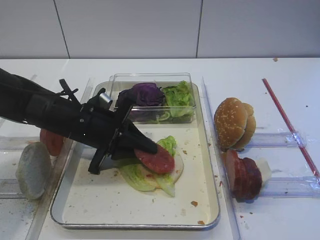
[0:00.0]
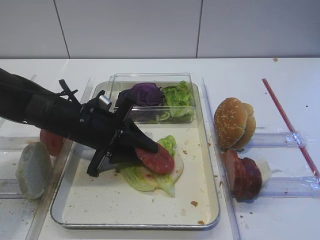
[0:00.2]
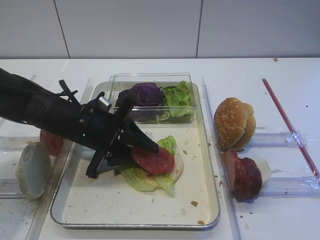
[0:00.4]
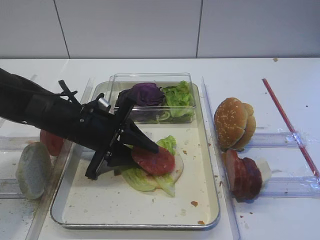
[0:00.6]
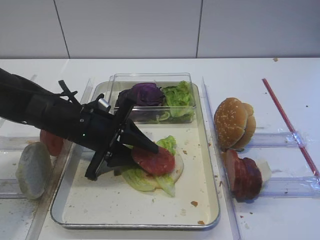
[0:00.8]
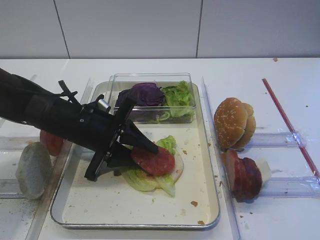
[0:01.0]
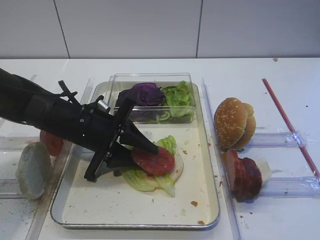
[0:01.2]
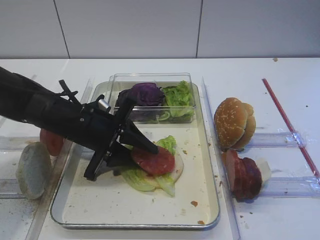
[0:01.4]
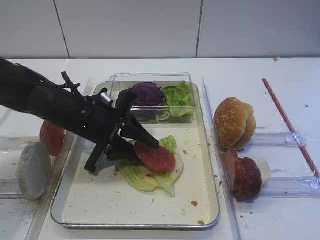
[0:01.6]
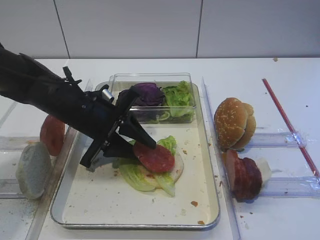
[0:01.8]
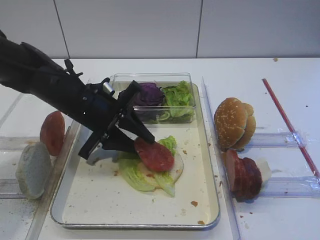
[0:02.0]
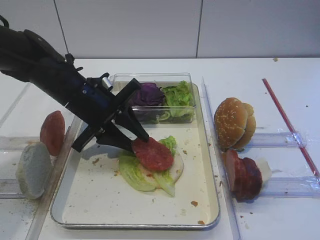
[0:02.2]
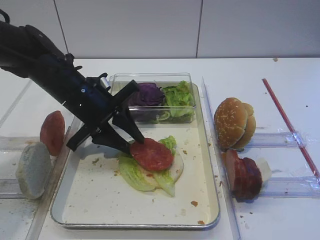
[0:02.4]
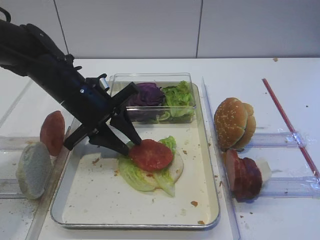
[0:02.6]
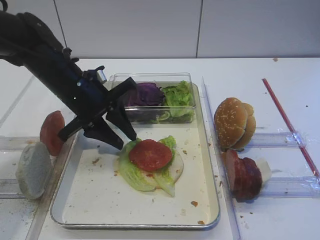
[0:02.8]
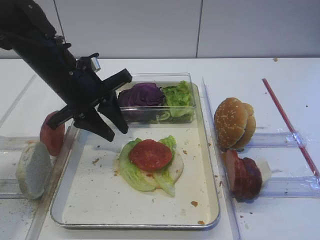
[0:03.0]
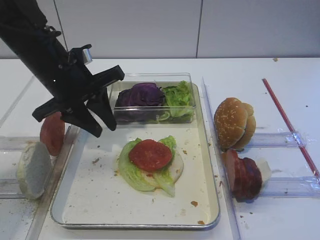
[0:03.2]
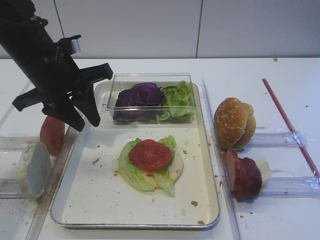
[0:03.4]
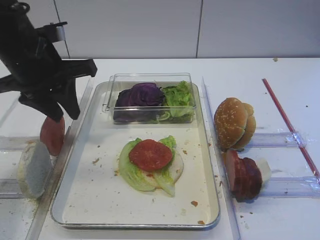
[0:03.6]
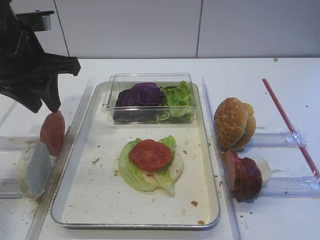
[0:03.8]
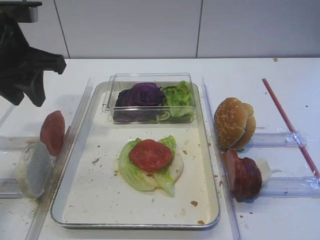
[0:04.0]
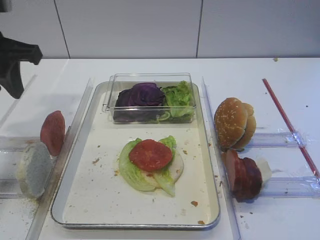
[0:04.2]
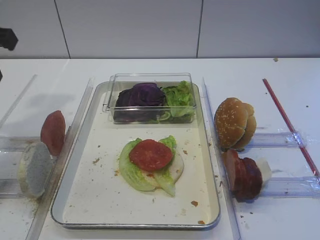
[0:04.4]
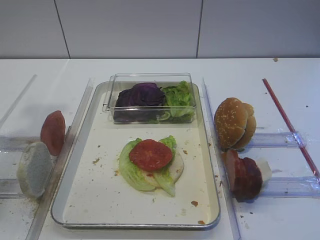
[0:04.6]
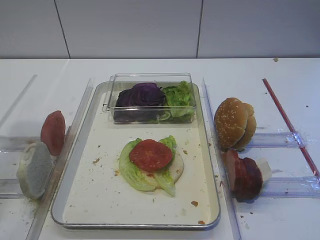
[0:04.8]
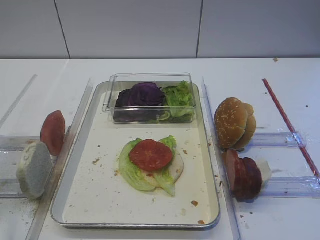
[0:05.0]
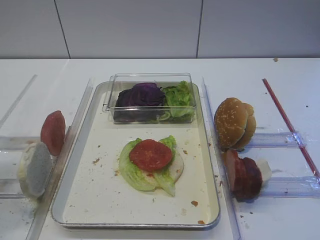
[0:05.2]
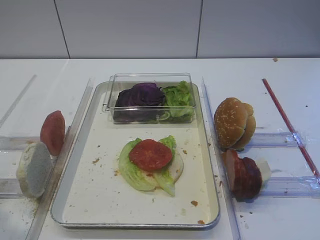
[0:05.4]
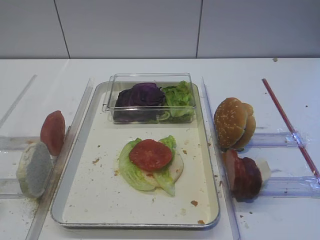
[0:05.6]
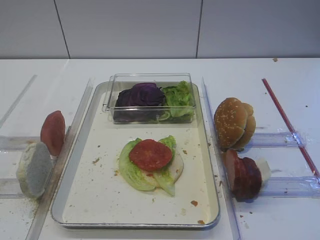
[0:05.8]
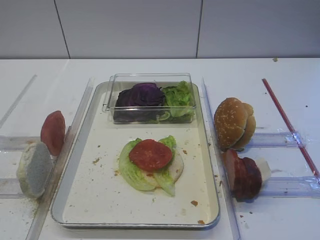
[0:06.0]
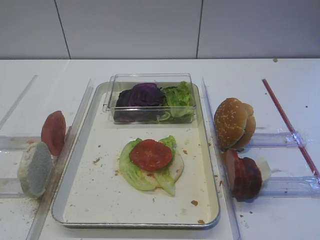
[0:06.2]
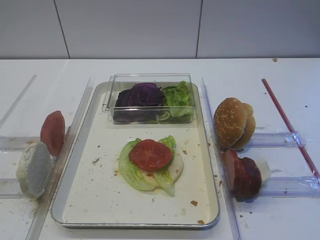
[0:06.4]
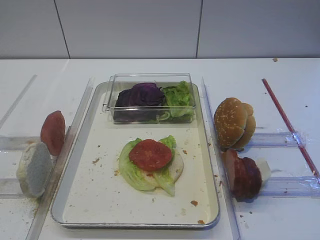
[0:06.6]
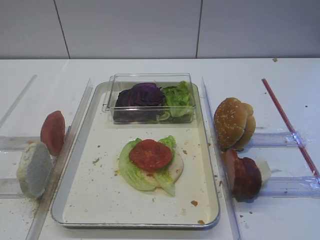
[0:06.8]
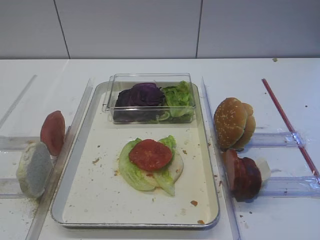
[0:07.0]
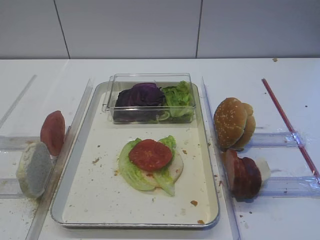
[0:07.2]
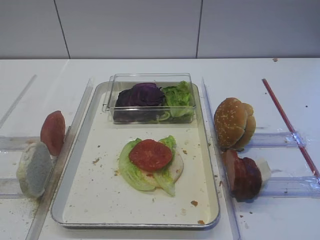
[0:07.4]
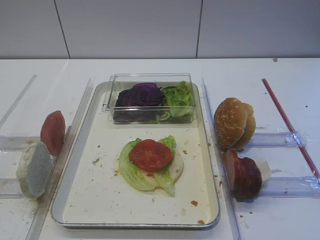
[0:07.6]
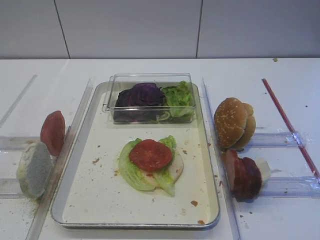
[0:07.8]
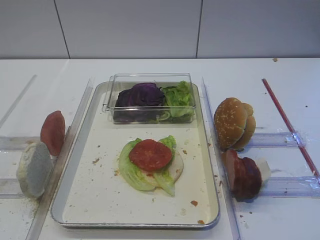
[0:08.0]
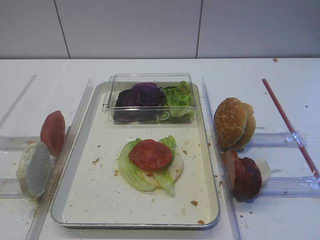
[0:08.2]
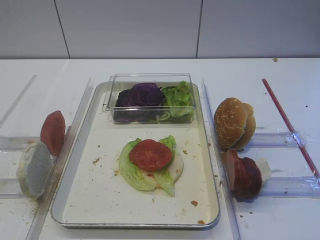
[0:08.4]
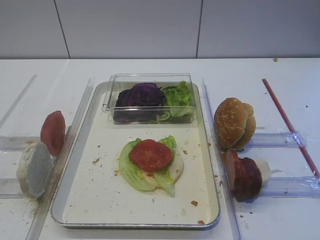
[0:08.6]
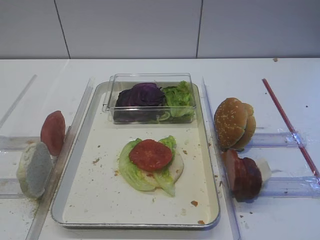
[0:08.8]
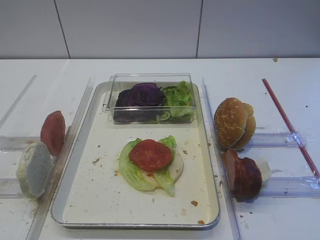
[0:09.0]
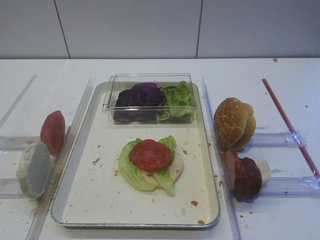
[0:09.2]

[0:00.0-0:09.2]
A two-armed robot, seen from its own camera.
Step, 0:00.0 to 0:02.8: Place the tomato slice on the lettuce leaf with the left gripper.
0:00.0 to 0:01.6: The left gripper opens its fingers.
0:01.6 to 0:03.0: The left gripper moves upward, roughly 5 cm.
0:03.0 to 0:04.6: The left gripper heads upward, to the left and backward, covering about 20 cm. Meanwhile the right gripper closes its fingers.
0:04.6 to 0:06.2: The left gripper goes some 25 cm backward.
0:07.6 to 0:09.2: The two grippers keep their place.

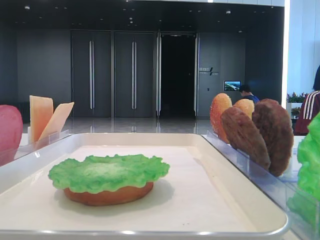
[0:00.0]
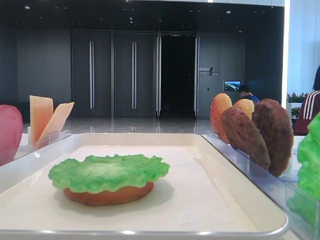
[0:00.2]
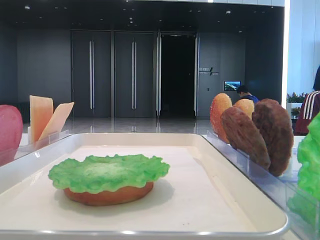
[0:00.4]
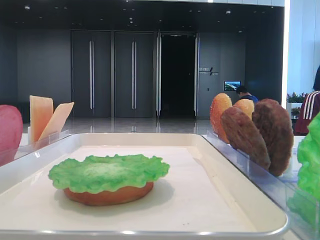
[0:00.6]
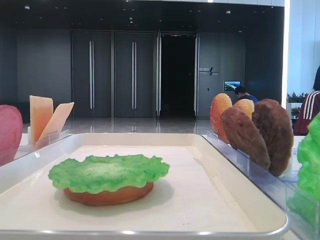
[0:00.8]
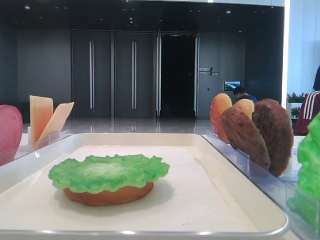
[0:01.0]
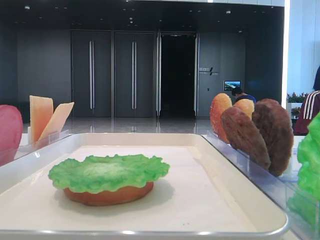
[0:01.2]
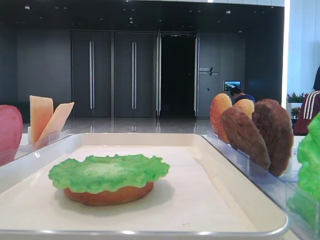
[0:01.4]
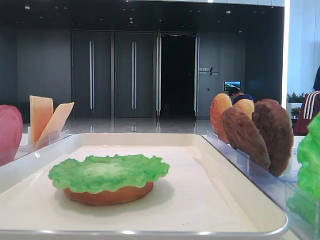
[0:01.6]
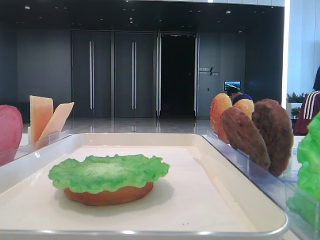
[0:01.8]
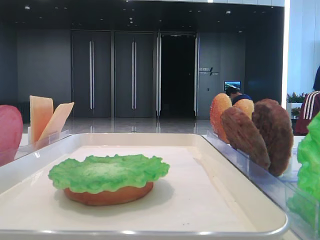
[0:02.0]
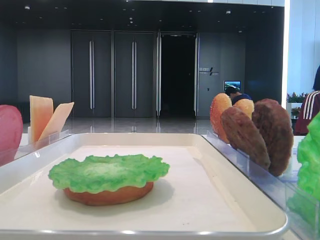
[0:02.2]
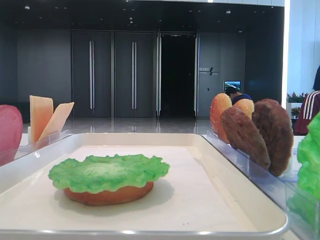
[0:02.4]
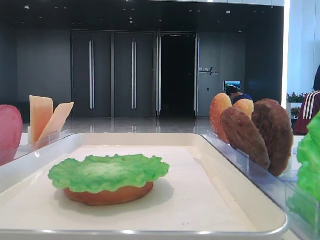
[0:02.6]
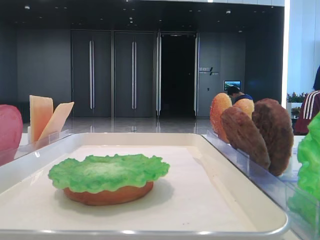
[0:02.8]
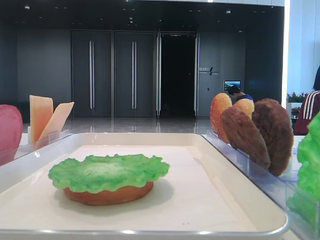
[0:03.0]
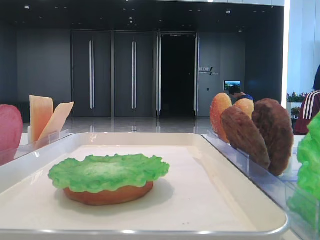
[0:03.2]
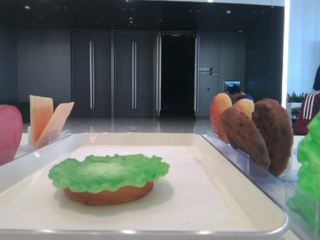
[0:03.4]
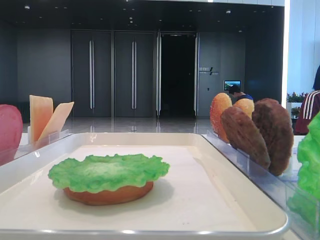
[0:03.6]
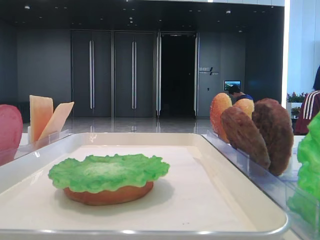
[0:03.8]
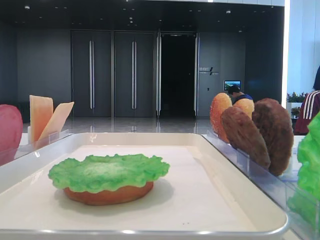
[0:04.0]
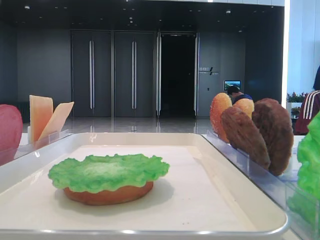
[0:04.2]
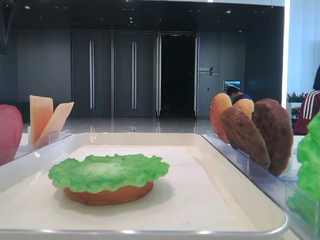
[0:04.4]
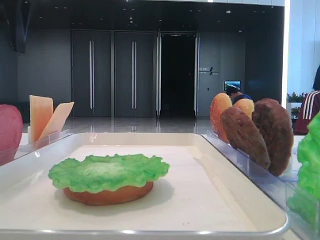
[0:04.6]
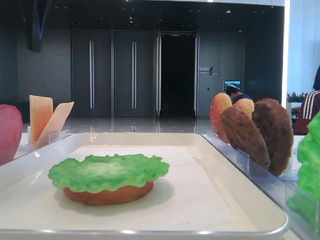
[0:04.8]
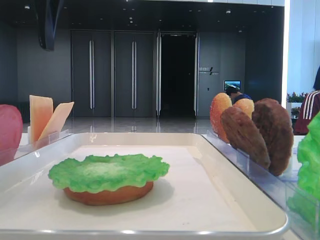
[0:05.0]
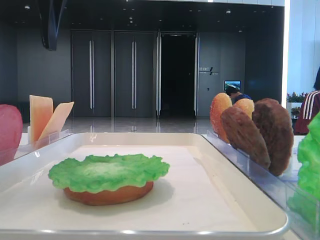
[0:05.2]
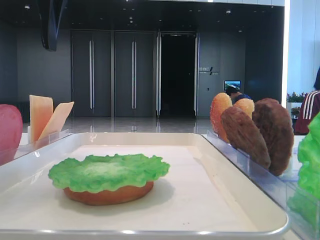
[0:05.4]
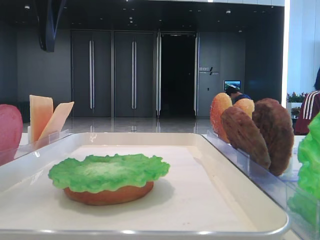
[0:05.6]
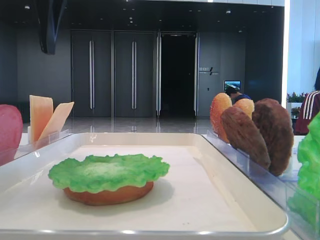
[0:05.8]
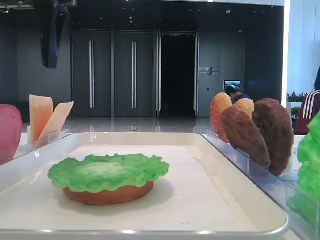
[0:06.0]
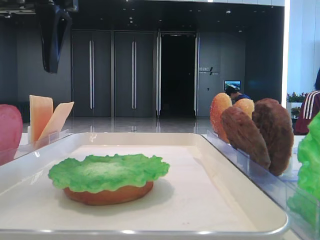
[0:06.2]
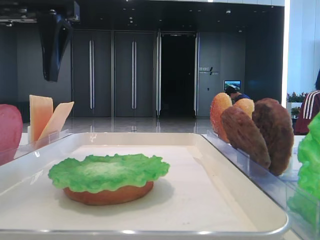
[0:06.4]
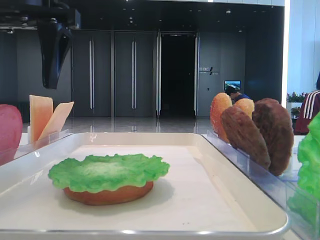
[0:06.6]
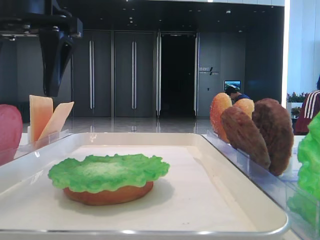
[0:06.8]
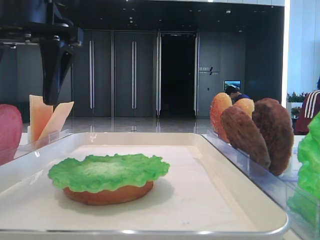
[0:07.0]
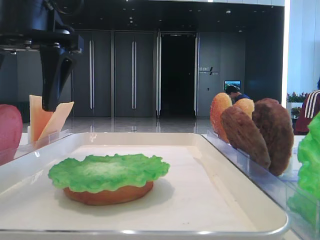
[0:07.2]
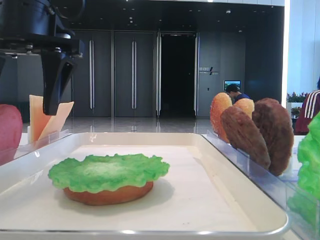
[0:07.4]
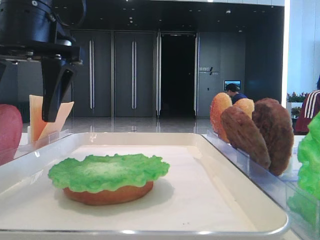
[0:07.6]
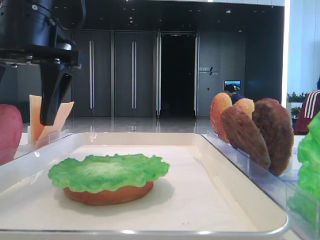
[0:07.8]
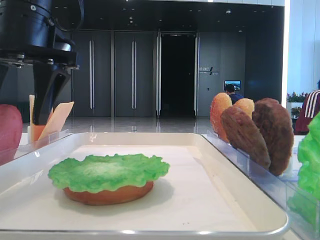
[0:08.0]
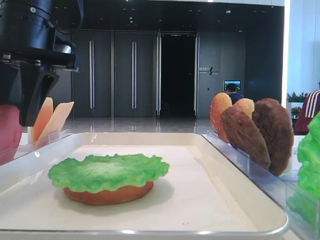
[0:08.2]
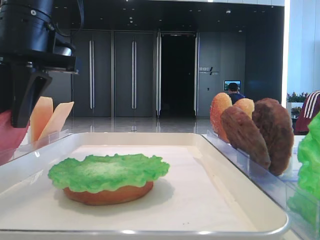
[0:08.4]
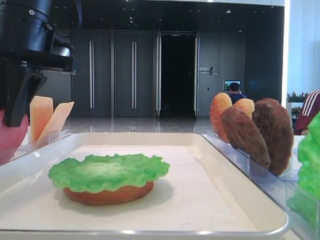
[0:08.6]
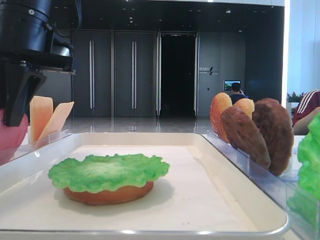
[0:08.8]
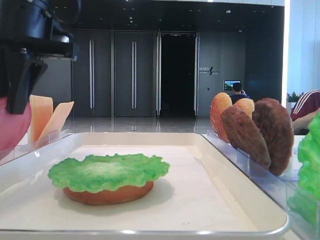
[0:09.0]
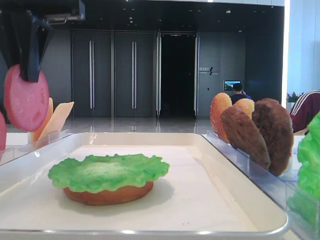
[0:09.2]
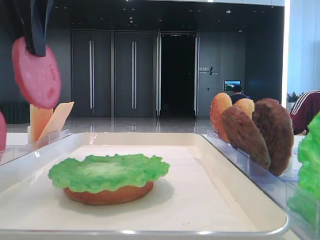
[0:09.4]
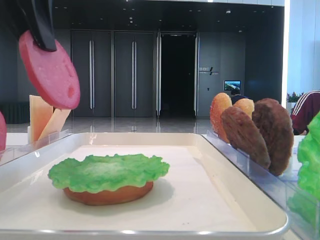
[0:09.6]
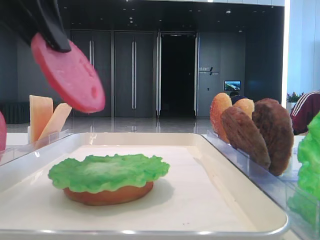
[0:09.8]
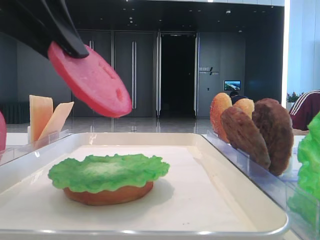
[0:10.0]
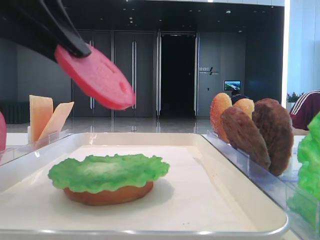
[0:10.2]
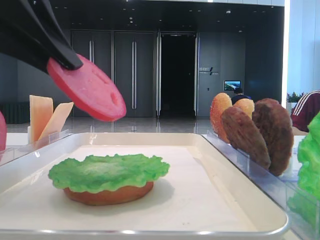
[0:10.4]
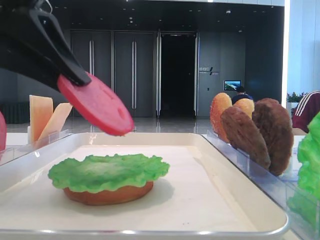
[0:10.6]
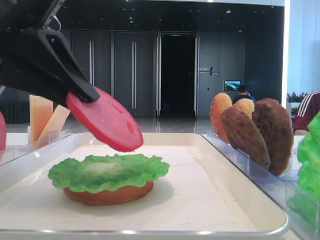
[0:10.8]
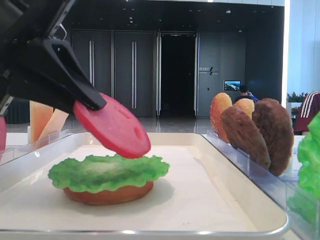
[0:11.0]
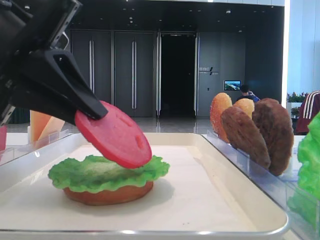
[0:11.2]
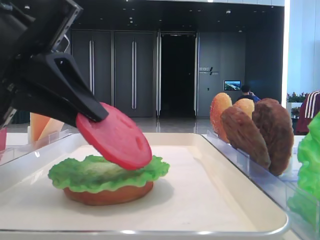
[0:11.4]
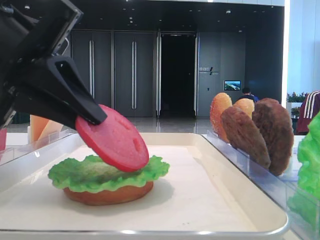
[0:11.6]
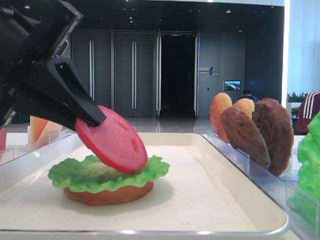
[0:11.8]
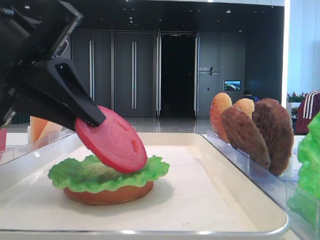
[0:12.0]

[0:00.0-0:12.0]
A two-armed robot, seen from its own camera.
Step, 0:00.0 to 0:08.6: Pick up the tomato slice with the left hand.
0:04.4 to 0:06.0: The left gripper travels to the right by approximately 10 cm.
0:06.0 to 0:07.6: The left gripper goes some 5 cm downward.
0:07.6 to 0:09.0: The left gripper closes its fingers.
0:09.0 to 0:10.4: The left gripper goes about 10 cm backward.
0:10.4 to 0:12.0: The left gripper shifts some 5 cm downward.

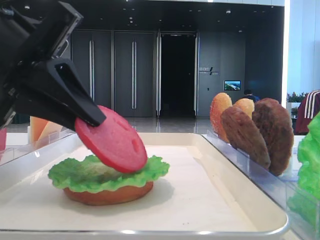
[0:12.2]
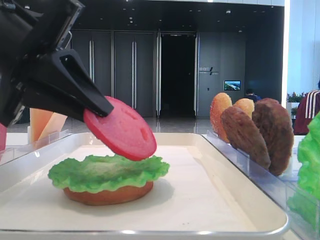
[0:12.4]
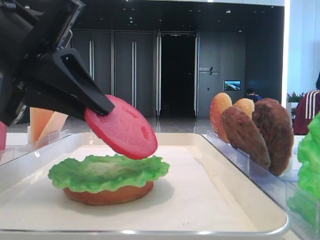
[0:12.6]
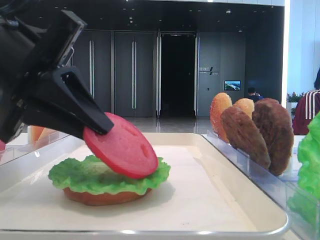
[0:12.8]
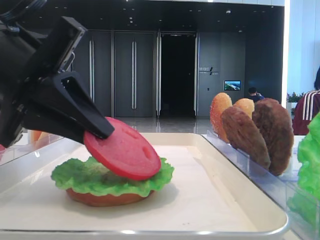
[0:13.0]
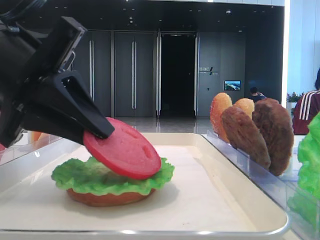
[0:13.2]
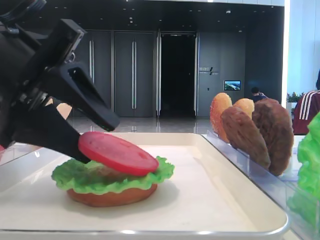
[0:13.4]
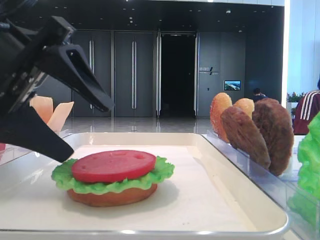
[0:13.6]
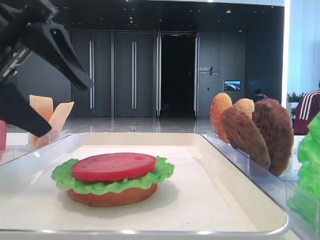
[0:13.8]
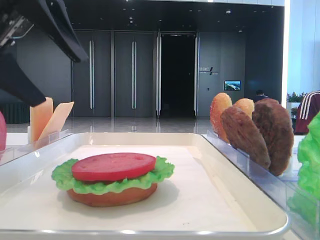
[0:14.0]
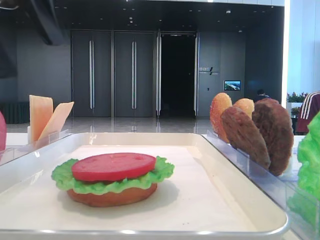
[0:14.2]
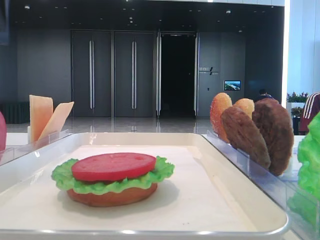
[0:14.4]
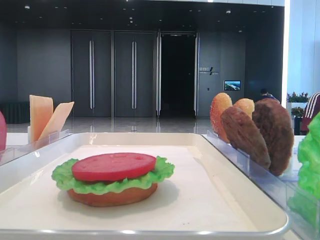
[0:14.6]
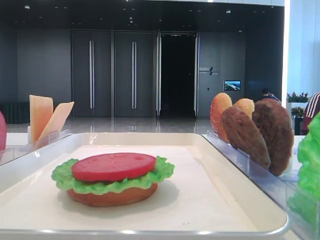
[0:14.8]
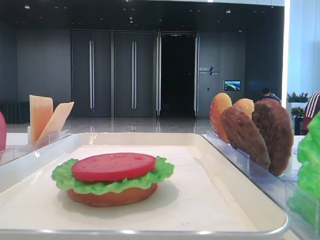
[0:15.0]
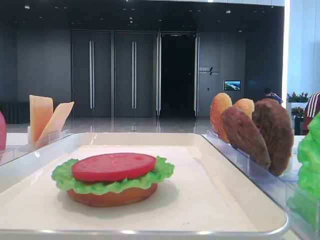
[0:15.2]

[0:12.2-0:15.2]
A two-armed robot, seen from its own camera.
0:12.2 to 0:13.8: The left gripper opens its fingers.
0:13.8 to 0:15.2: The left gripper is displaced to the left and upward by about 15 cm.
